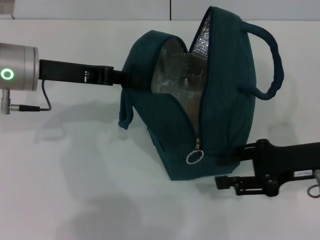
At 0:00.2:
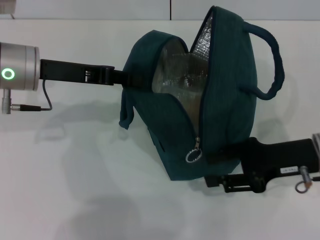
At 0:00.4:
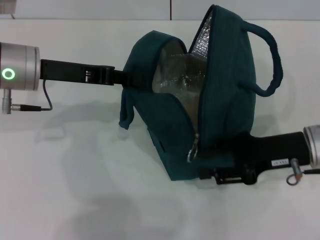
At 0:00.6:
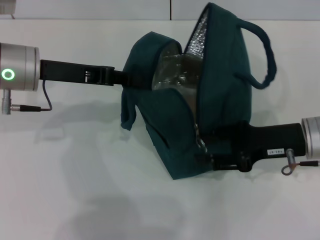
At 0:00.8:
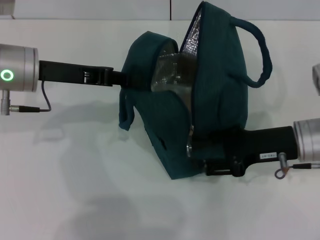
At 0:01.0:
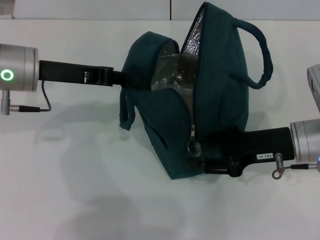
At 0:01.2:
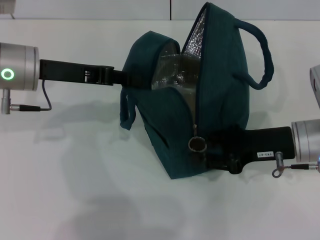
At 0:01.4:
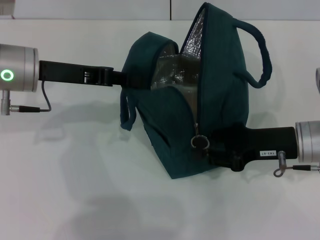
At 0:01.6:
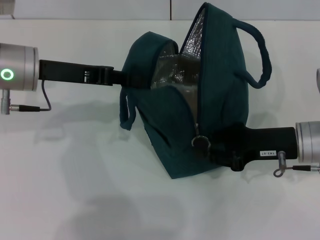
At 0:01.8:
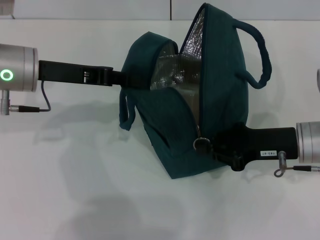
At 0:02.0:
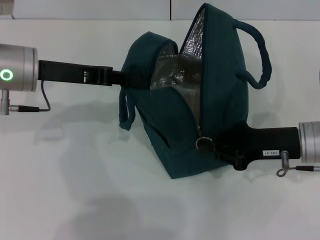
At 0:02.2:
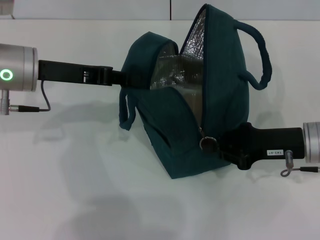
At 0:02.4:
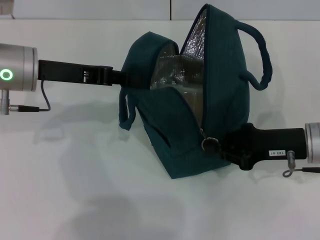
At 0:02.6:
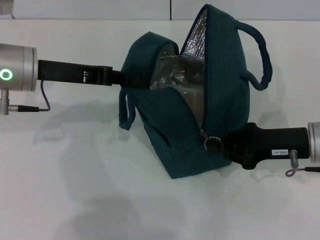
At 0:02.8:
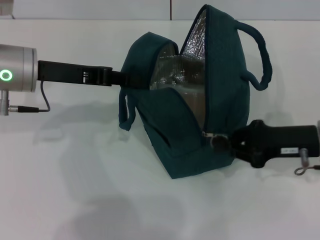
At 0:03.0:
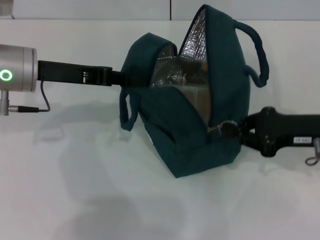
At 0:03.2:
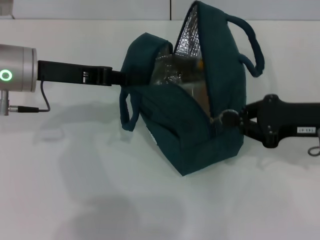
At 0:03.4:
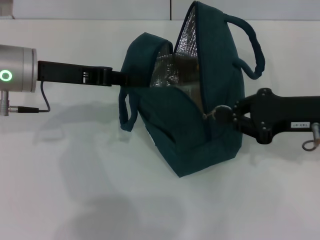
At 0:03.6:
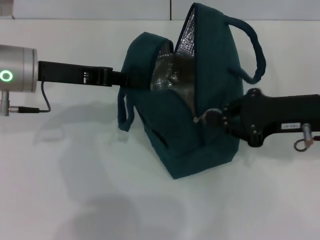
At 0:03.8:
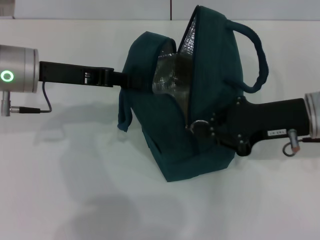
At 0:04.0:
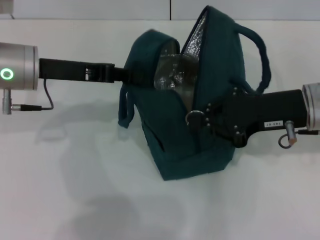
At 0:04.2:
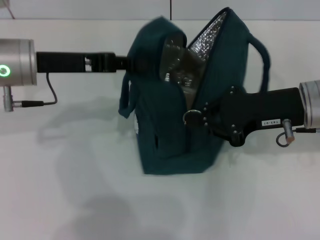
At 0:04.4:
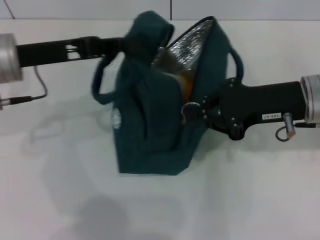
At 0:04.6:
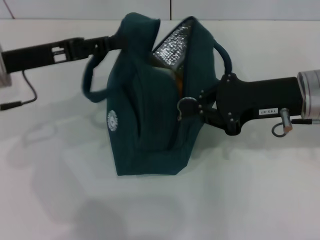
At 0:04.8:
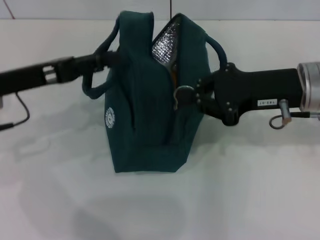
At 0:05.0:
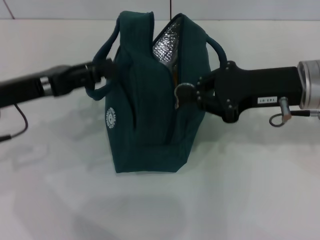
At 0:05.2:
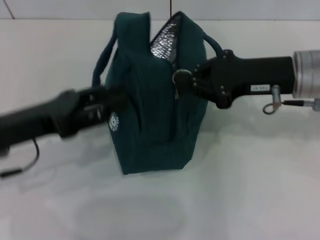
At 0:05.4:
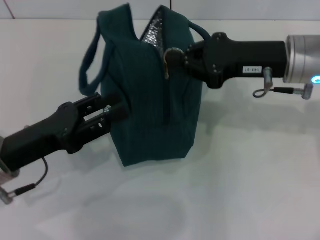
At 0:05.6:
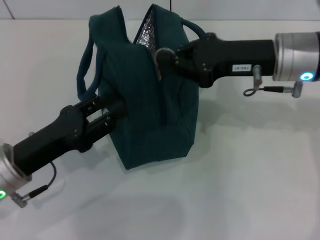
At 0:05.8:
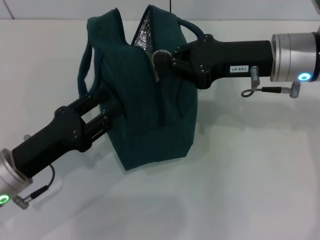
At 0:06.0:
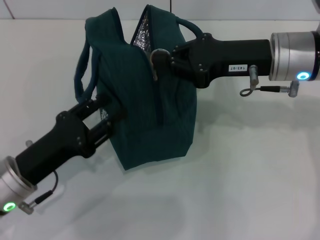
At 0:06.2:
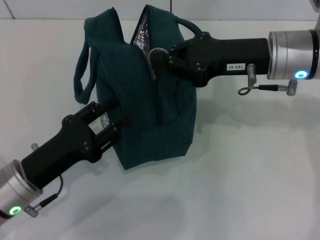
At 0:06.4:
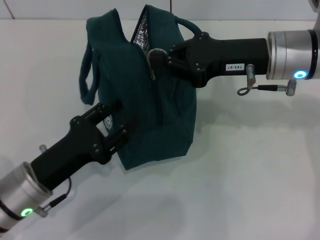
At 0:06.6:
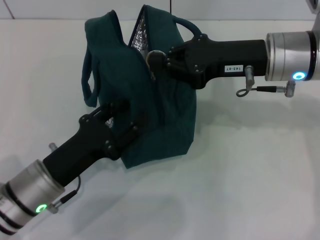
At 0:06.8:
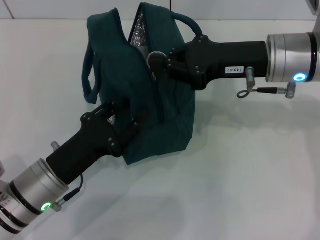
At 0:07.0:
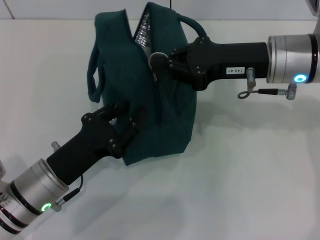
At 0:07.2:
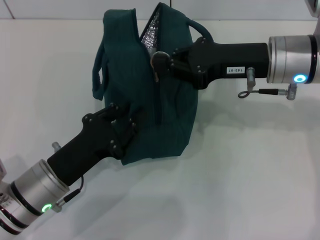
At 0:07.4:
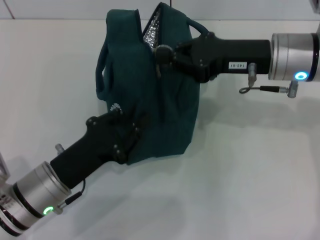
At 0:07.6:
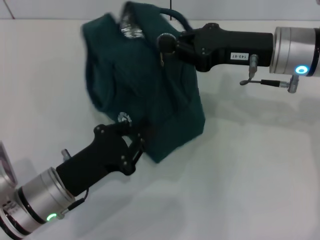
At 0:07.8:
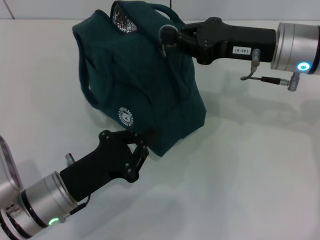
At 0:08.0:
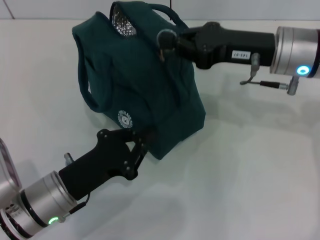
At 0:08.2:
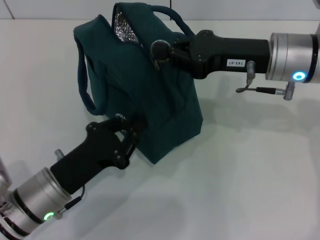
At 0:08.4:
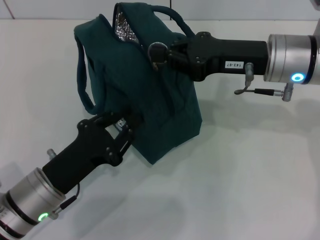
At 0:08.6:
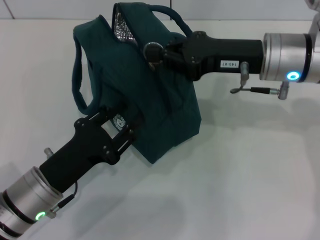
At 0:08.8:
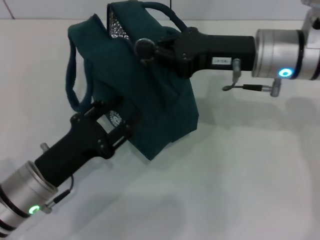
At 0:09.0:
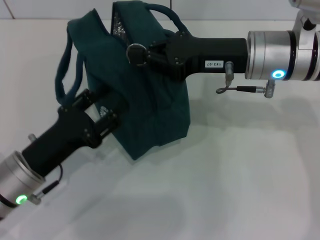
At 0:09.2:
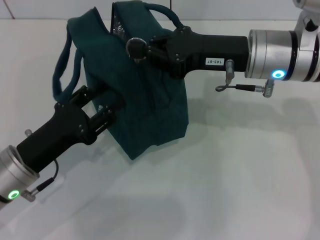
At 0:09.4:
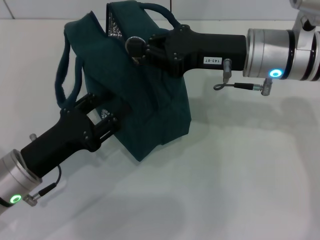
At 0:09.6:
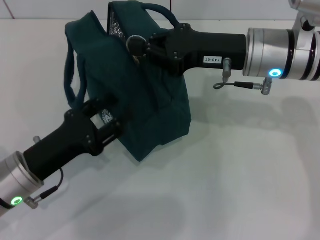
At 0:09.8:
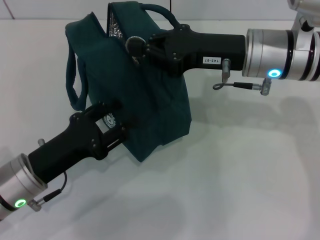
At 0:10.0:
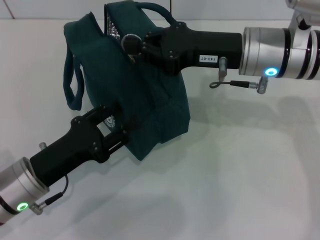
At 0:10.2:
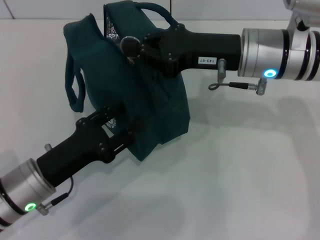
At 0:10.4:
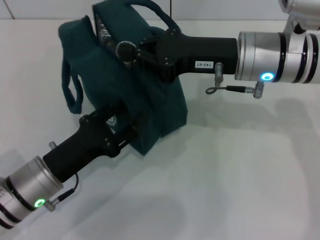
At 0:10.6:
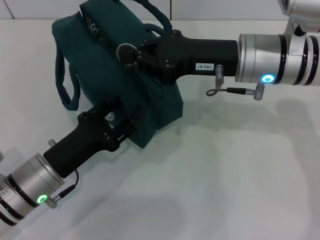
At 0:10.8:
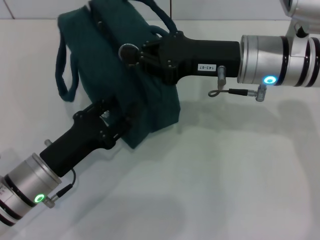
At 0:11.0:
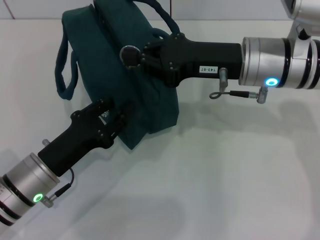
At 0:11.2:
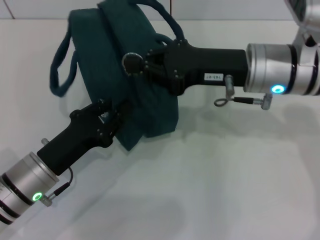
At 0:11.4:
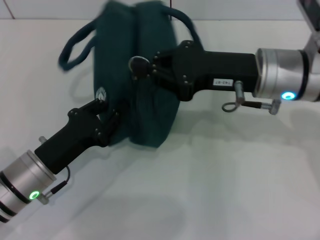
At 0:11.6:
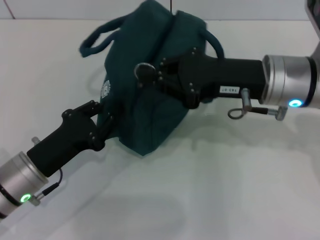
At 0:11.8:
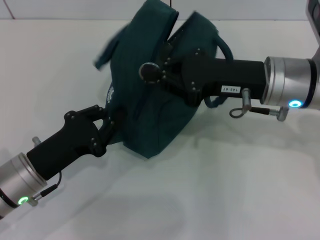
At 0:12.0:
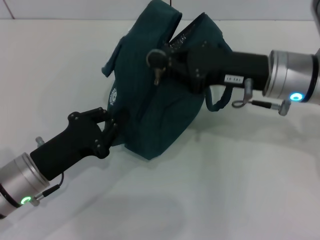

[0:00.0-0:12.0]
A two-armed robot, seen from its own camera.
Step, 0:00.0 to 0:04.6: Hold the lunch bag with your left hand.
0:00.0 to 0:03.0: There are only small adjustments of the grippers.
0:03.0 to 0:04.4: The right gripper heads to the left and upward, covering approximately 5 cm.
0:04.4 to 0:06.0: The right gripper shifts by about 5 cm. The left gripper travels backward and downward by about 20 cm, and opens its fingers.
0:06.0 to 0:07.6: The left gripper closes up.
0:07.6 to 0:09.0: The left gripper opens up.
0:10.4 to 0:12.0: The left gripper closes.

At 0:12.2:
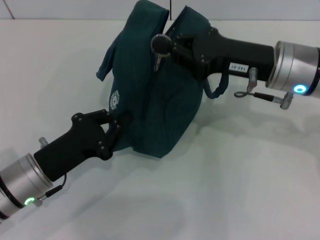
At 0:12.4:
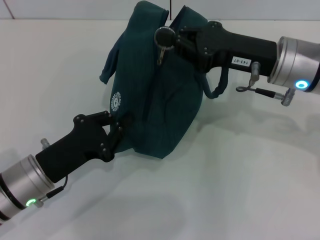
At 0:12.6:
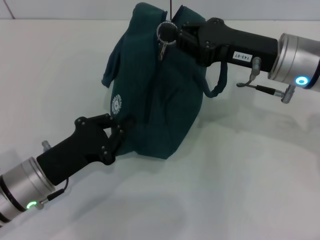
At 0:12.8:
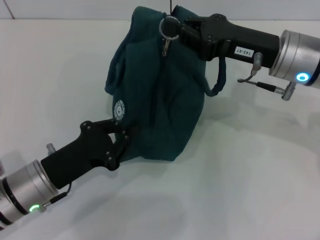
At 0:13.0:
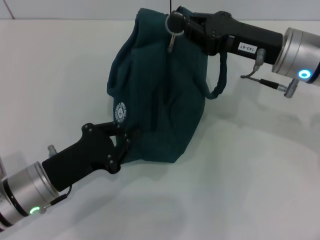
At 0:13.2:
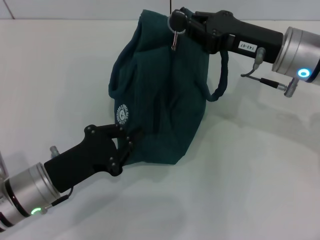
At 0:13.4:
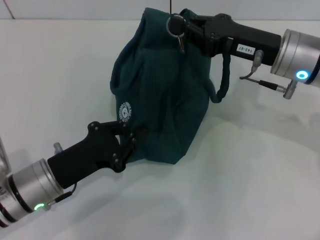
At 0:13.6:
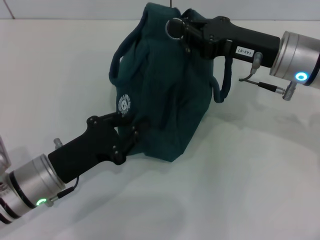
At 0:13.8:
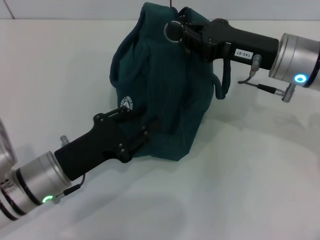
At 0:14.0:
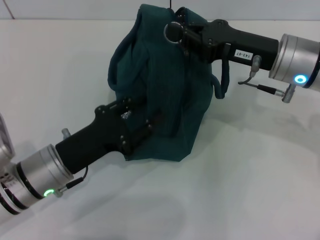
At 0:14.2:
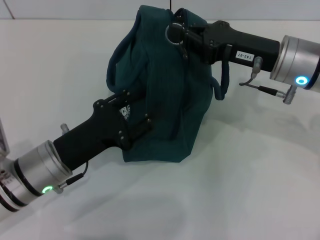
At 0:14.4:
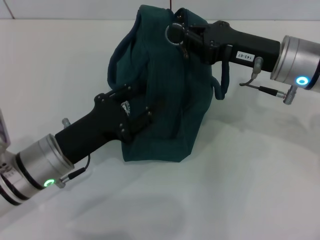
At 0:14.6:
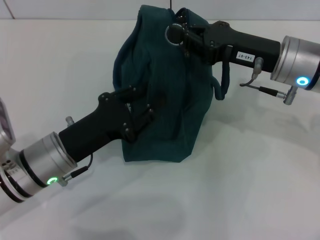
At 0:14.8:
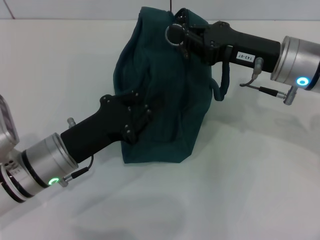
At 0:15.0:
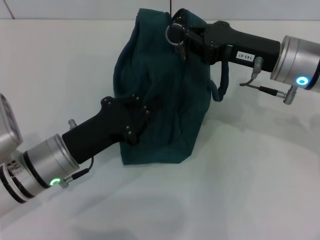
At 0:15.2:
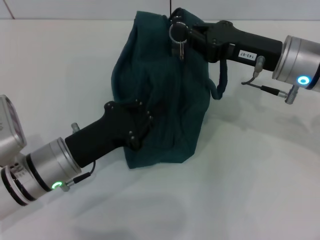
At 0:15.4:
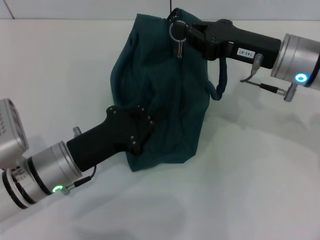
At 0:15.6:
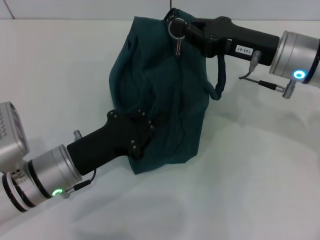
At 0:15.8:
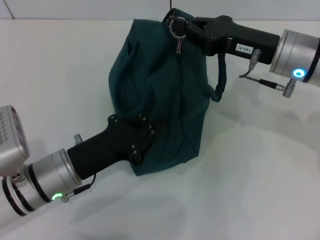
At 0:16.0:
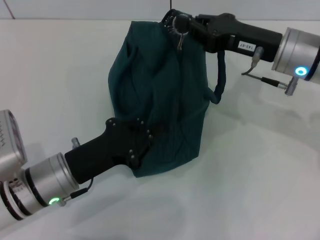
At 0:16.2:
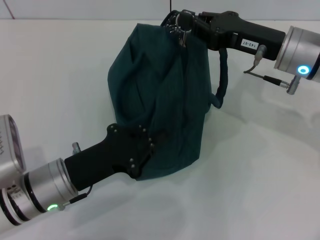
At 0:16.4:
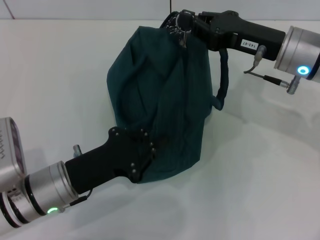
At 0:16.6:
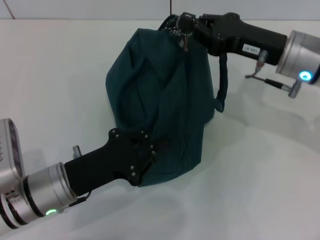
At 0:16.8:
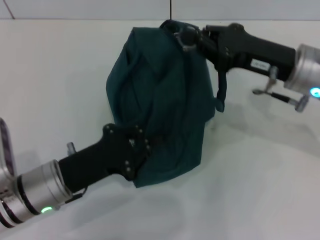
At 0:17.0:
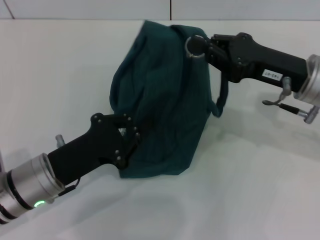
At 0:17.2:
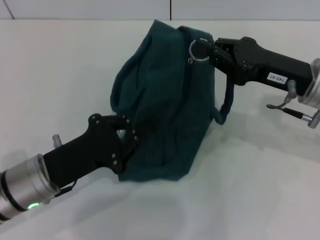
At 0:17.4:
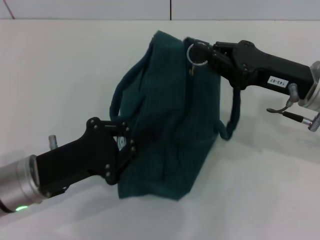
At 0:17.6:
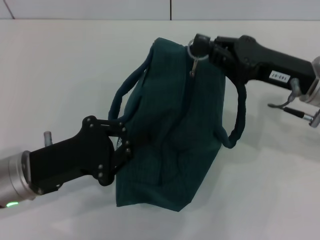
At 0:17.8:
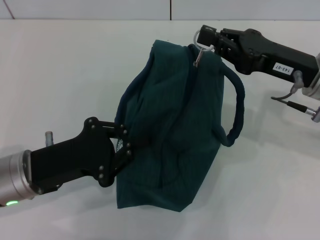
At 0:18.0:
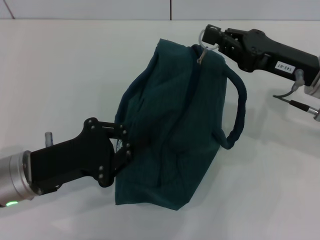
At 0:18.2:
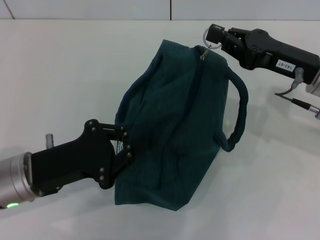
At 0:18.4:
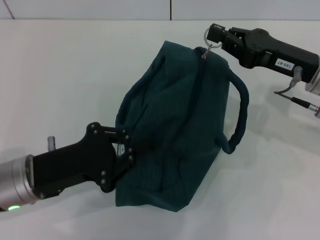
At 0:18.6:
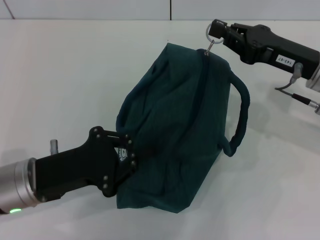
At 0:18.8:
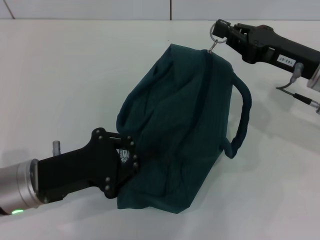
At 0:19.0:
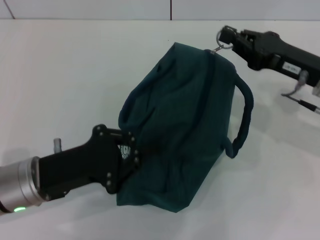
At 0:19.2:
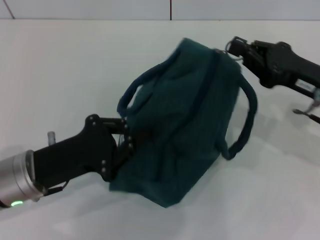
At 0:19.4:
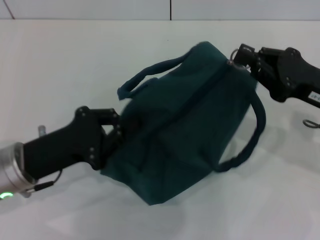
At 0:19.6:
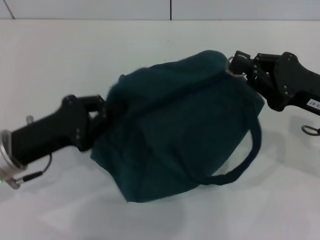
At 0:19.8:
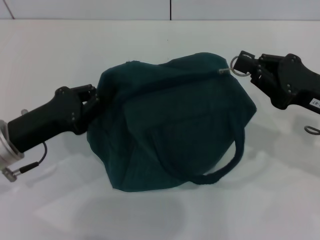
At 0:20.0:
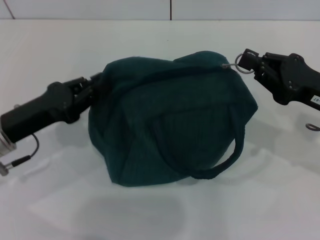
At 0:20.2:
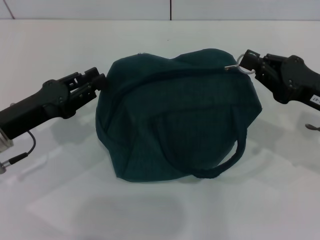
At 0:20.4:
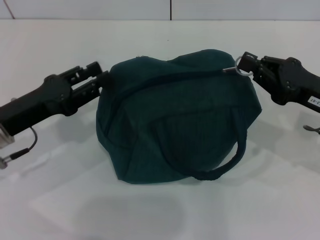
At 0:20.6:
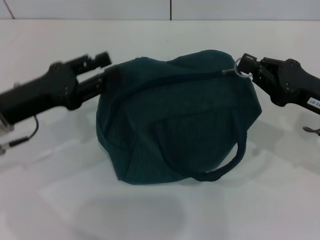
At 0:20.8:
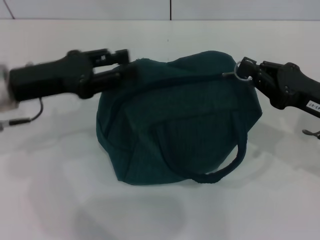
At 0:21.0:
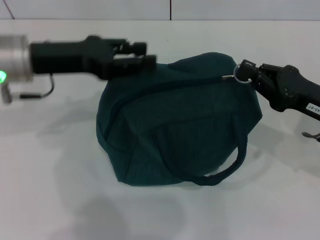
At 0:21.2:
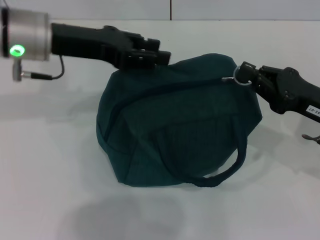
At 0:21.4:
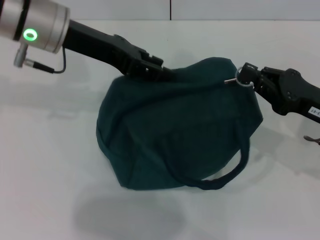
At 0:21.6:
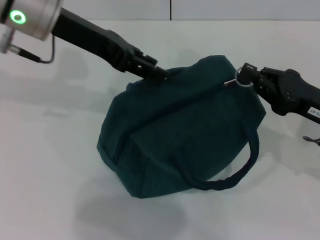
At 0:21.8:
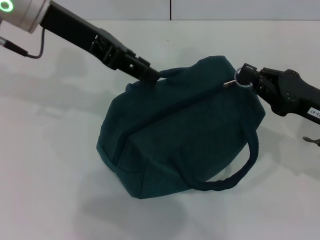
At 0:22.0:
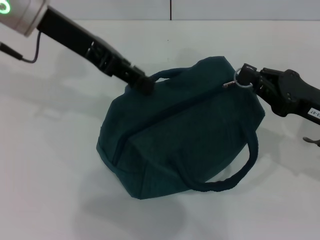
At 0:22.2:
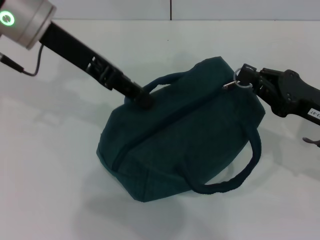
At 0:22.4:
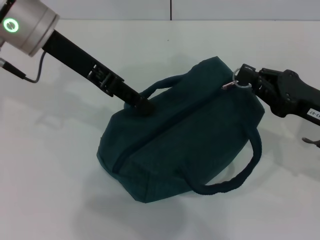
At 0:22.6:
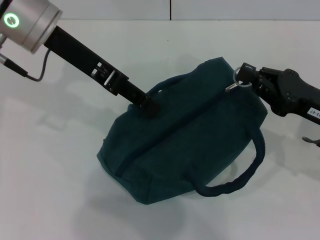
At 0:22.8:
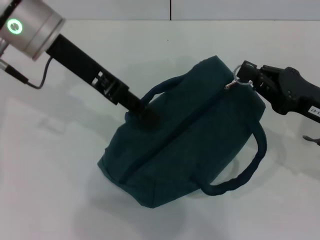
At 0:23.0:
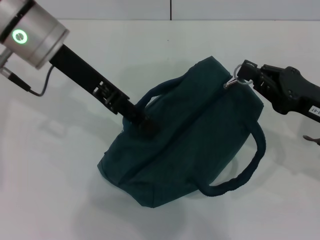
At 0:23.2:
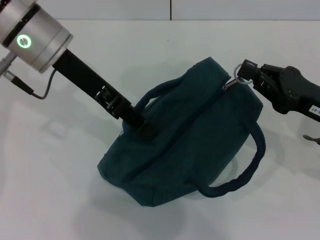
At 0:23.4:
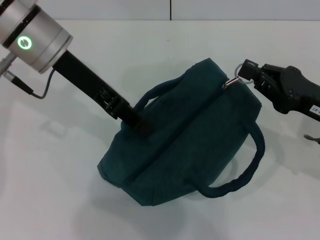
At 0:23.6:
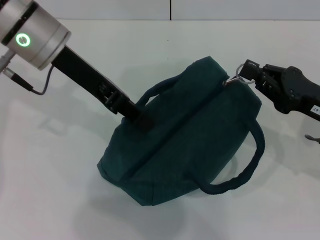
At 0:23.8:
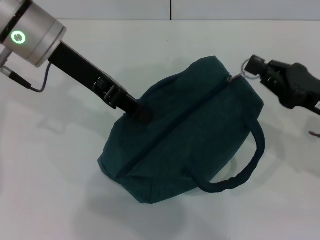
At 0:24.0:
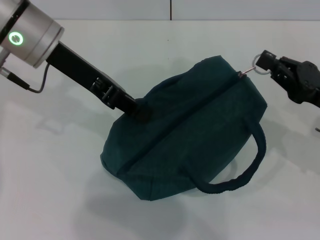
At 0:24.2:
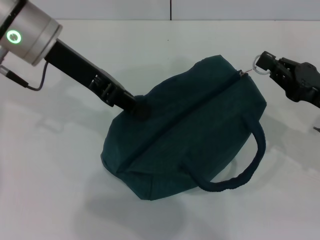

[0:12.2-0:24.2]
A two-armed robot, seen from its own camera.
0:12.2 to 0:15.2: The grippers make only small movements.
0:18.2 to 0:19.8: The right gripper travels backward by roughly 5 cm.
0:19.8 to 0:21.2: The left gripper moves upward, forward and to the right, roughly 15 cm, and opens its fingers.
0:21.2 to 0:22.6: The left gripper moves about 5 cm.
0:22.6 to 0:24.2: The grippers stay close to where they were, moving slightly.
